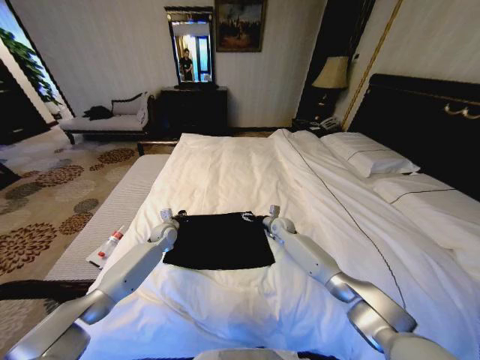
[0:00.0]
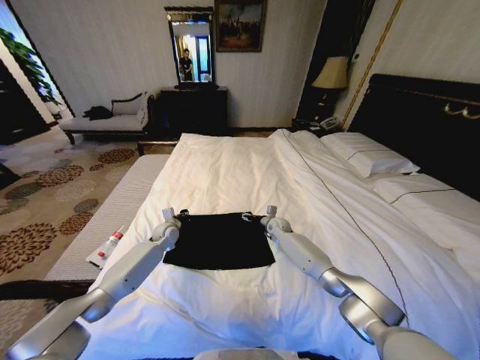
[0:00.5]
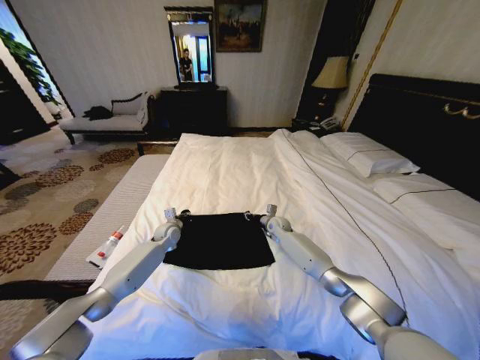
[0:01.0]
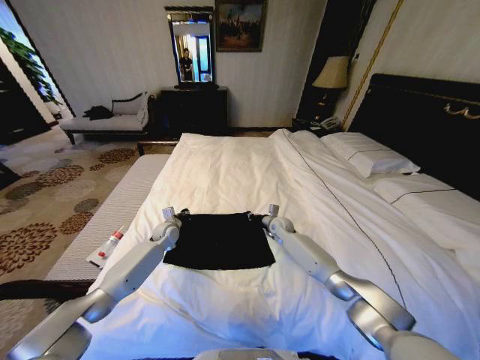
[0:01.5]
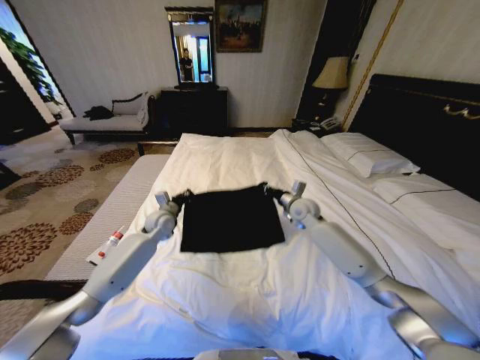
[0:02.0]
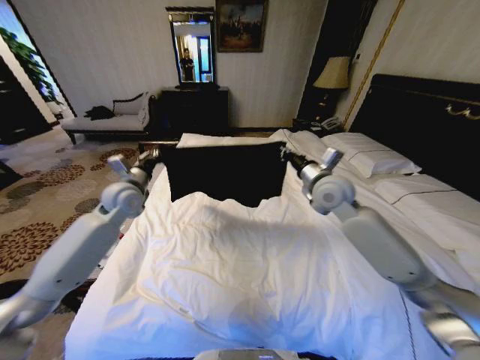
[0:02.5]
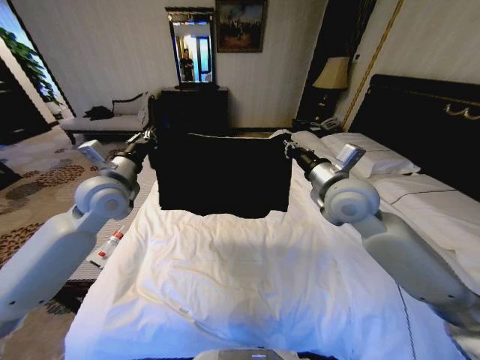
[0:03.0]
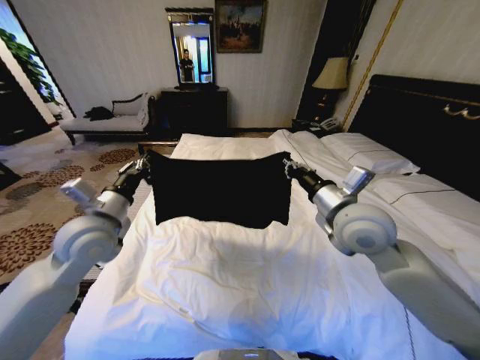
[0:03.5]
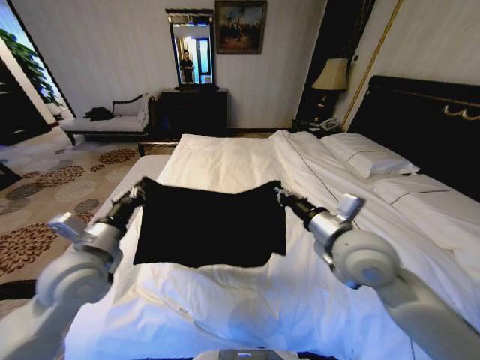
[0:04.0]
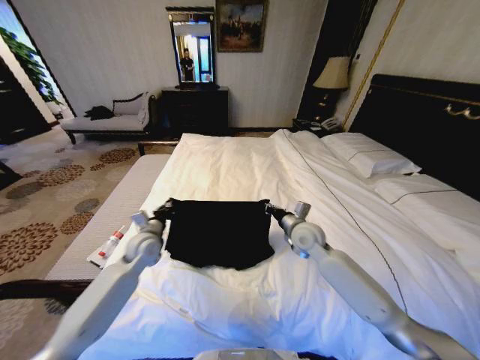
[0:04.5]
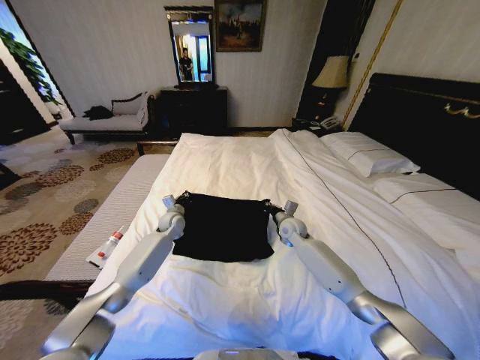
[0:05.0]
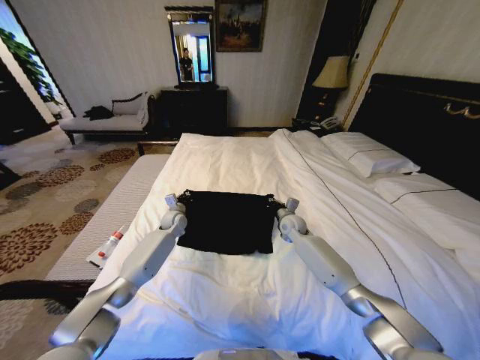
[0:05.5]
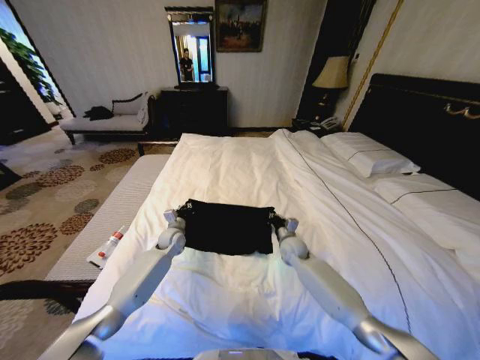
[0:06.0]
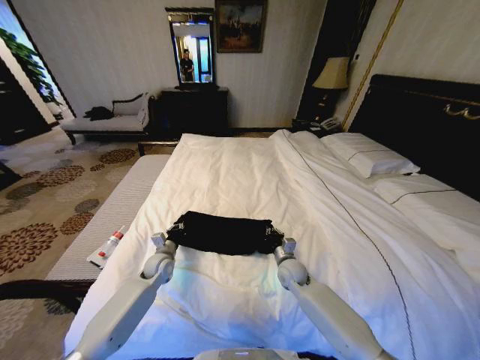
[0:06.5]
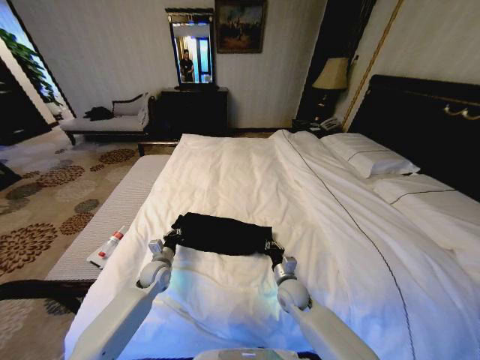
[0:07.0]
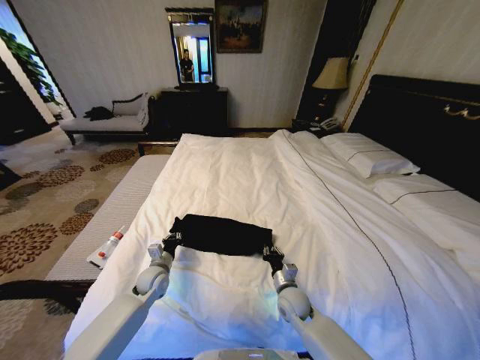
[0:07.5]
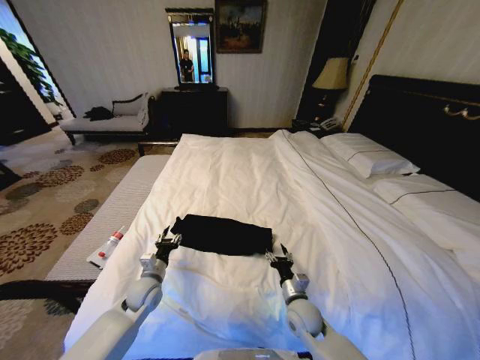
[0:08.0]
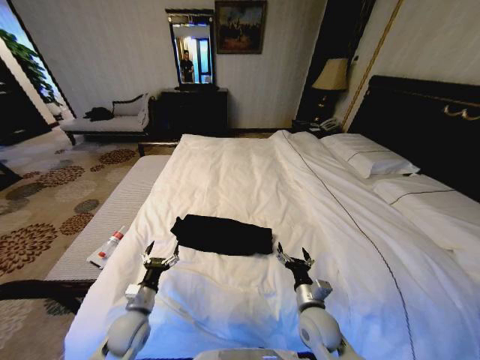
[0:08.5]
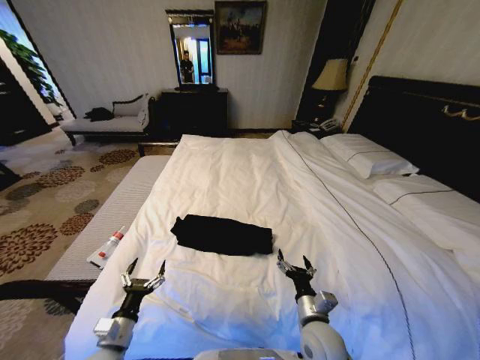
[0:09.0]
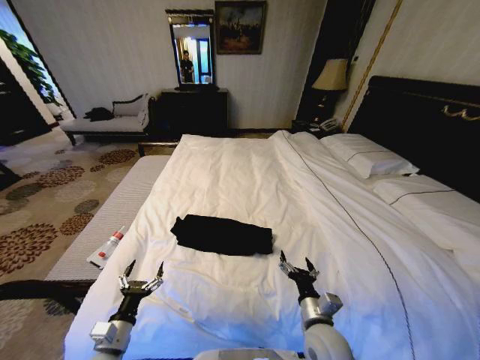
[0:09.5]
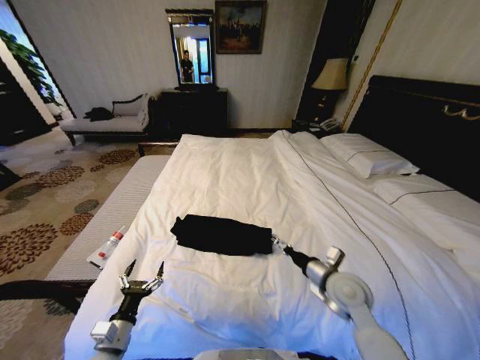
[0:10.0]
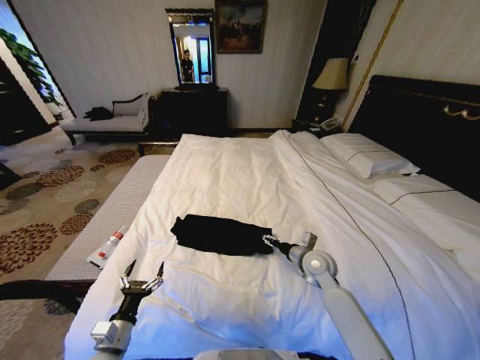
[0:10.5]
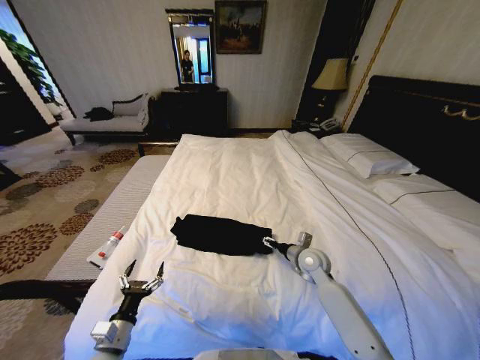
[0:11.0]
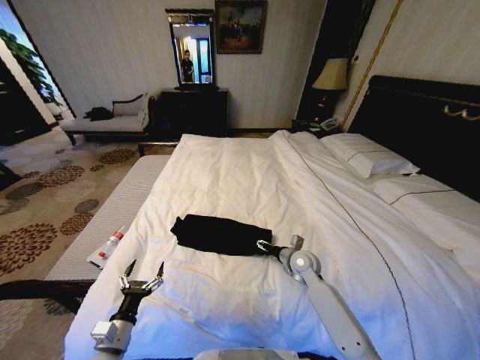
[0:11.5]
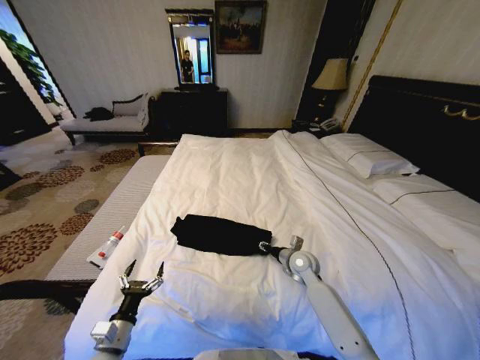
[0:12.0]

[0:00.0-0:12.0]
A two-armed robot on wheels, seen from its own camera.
Task of the whole recording: Fold the clothes on the bed.
0:00.0 to 0:02.0: The right gripper travels upward by about 15 cm, and closes its fingers, while the left gripper moves upward, roughly 10 cm.
0:02.0 to 0:04.0: The two grippers go roughly 25 cm backward and upward.
0:04.0 to 0:06.0: The left gripper shifts roughly 30 cm forward and downward. Meanwhile the right gripper travels downward and forward by approximately 30 cm.
0:06.0 to 0:08.0: The grippers both shift backward by some 20 cm. The right gripper opens its fingers. The left gripper opens.
0:08.0 to 0:10.0: The left gripper is displaced backward by approximately 20 cm, and opens up. Meanwhile the right gripper is displaced upward and to the right by some 15 cm, and opens its fingers.
0:10.0 to 0:12.0: The right gripper shifts roughly 15 cm forward and downward, and closes up.

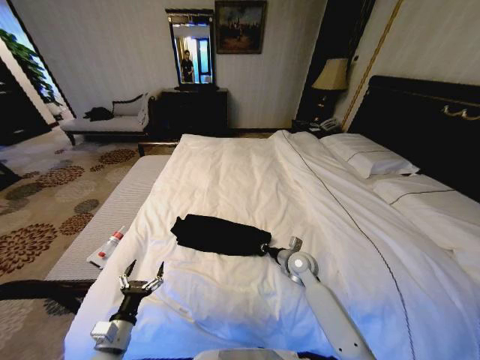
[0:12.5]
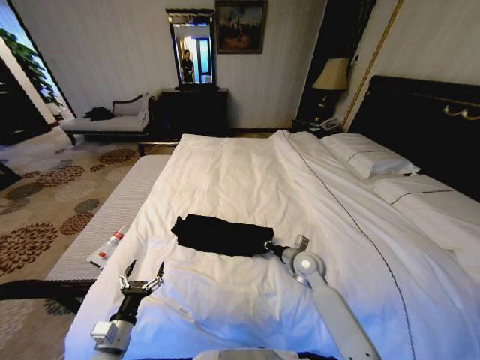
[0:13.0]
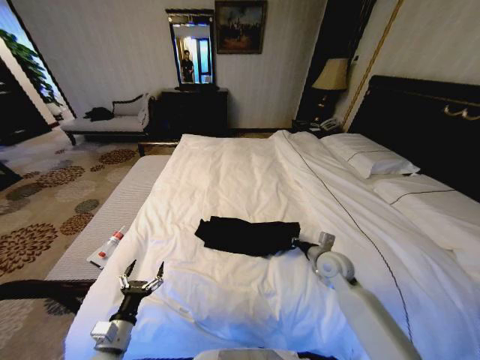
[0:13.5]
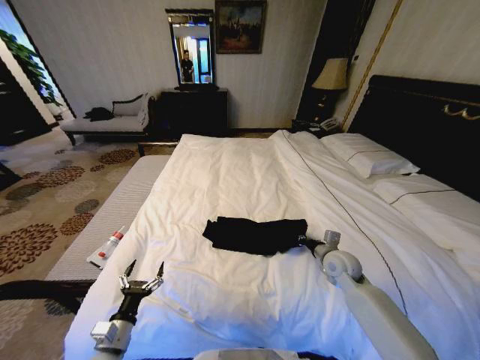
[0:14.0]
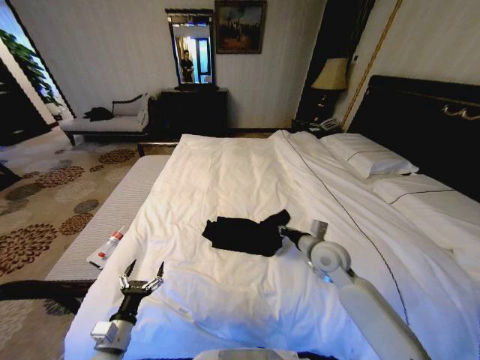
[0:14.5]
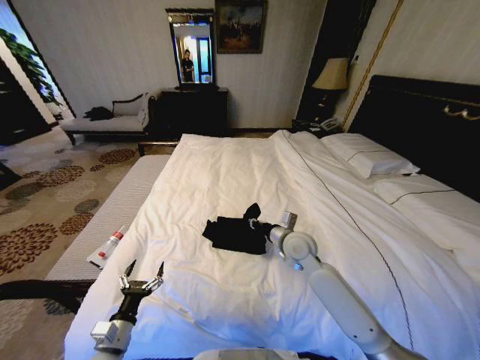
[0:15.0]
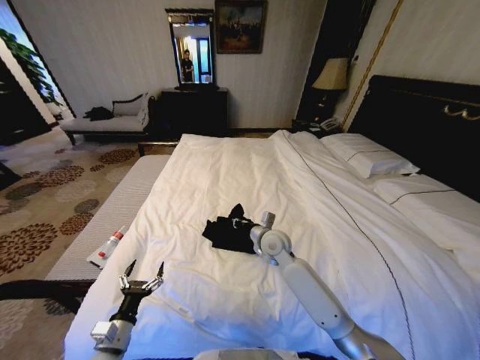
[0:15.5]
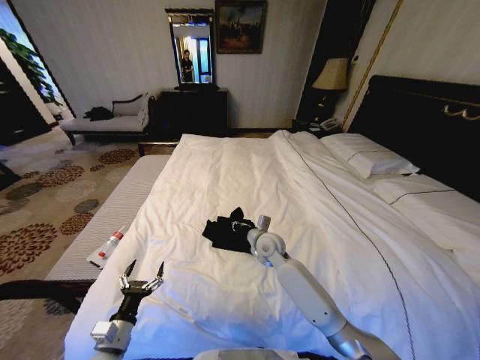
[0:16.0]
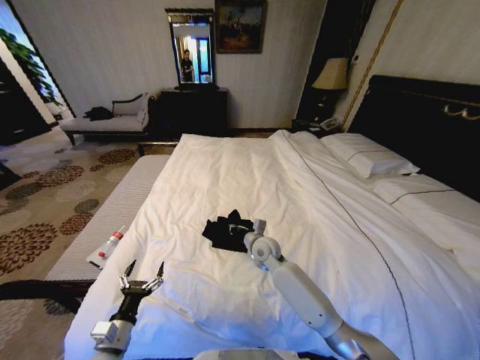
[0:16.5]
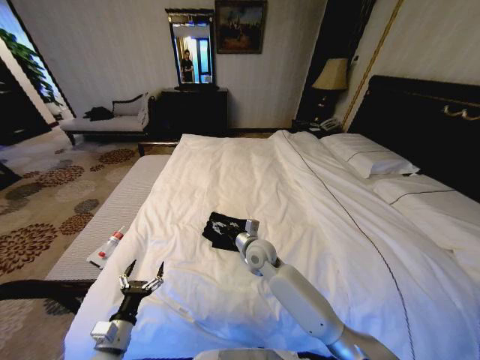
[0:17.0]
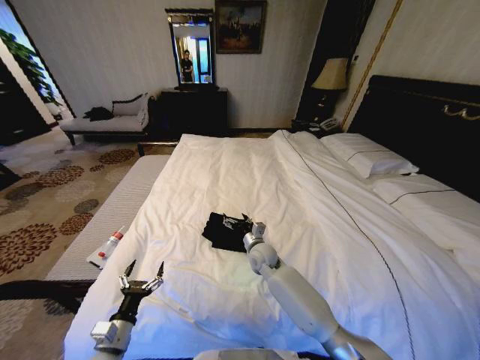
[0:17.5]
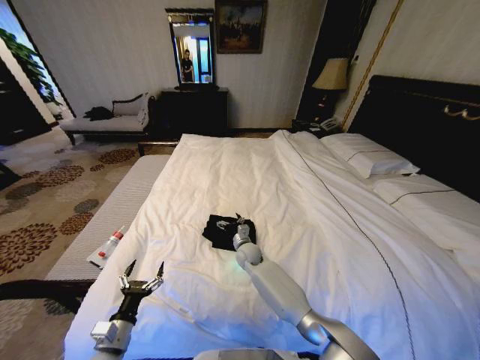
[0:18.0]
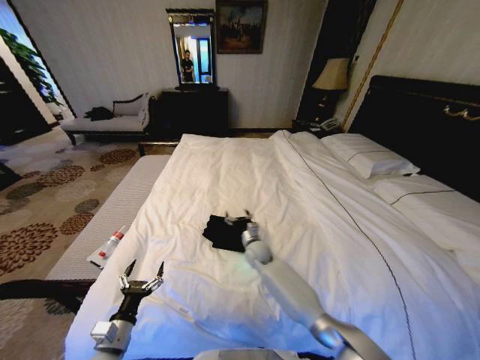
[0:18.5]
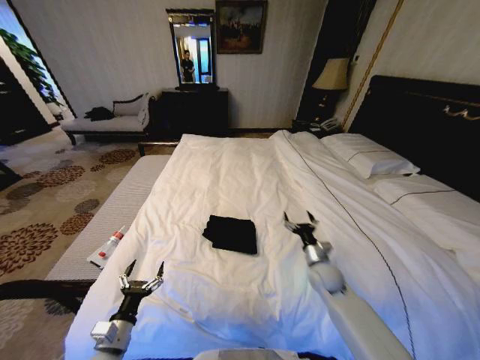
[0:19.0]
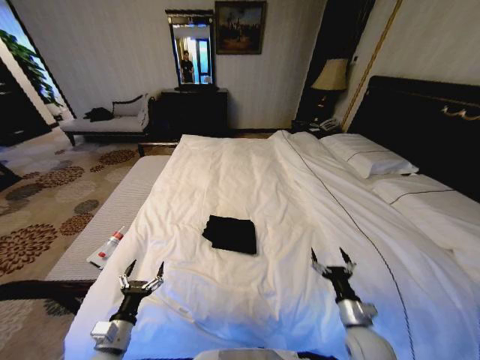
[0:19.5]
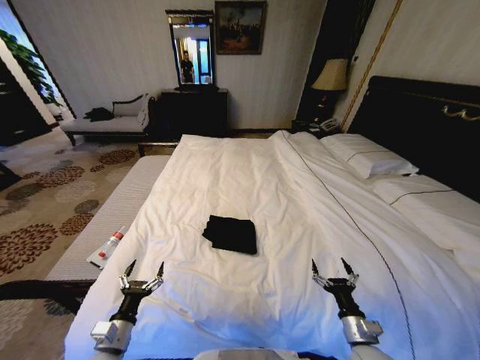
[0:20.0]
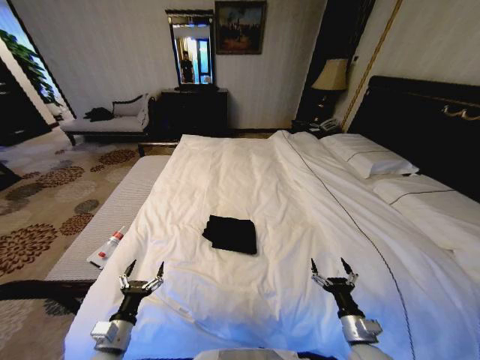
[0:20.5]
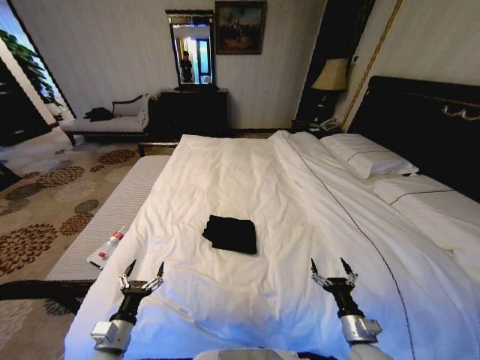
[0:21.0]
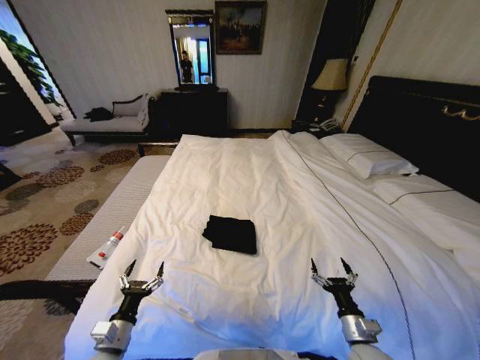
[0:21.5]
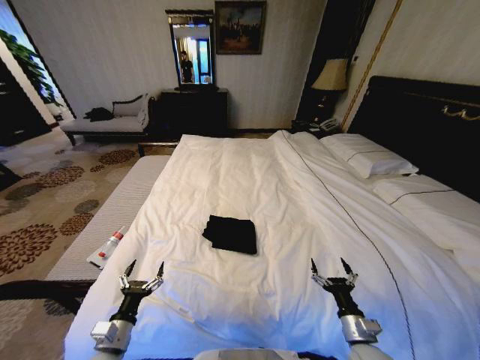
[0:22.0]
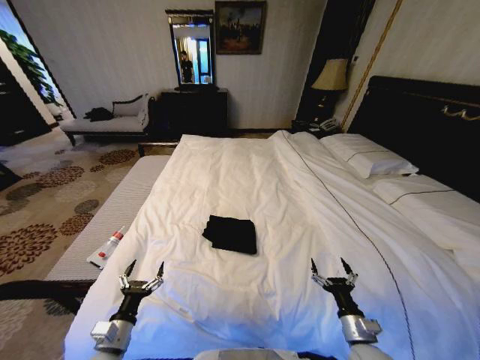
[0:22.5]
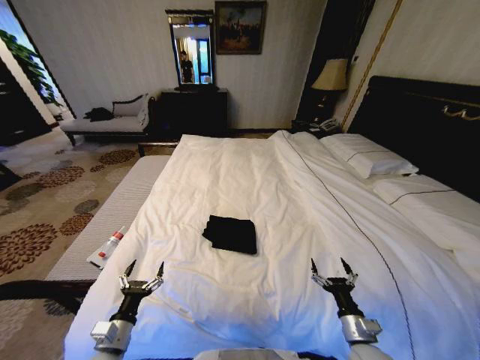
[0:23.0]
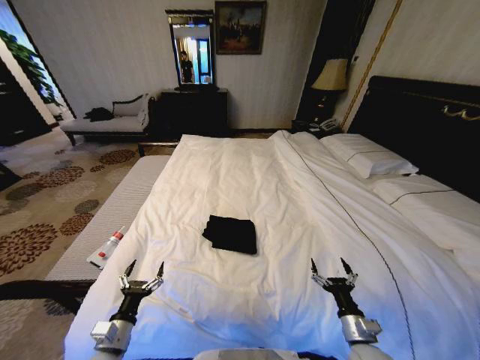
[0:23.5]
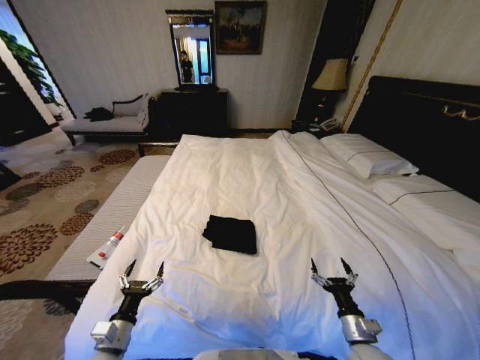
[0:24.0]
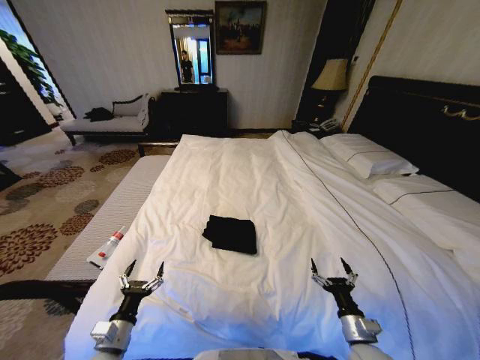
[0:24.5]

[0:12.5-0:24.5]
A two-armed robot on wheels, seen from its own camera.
Task of the whole recording: Fold the clothes on the bed.
0:12.5 to 0:14.5: The right gripper goes approximately 10 cm upward.
0:14.5 to 0:16.5: The right gripper shifts approximately 20 cm to the left, downward and forward.
0:16.5 to 0:18.5: The right gripper shifts some 5 cm downward, and opens.
0:18.5 to 0:20.5: The right gripper goes some 40 cm backward and to the right.
0:20.5 to 0:24.5: Neither gripper changes place.

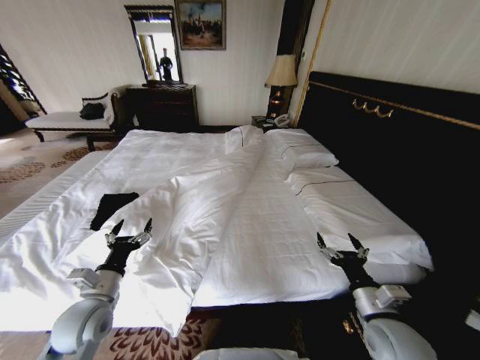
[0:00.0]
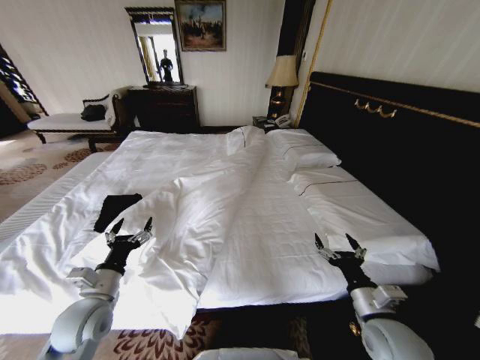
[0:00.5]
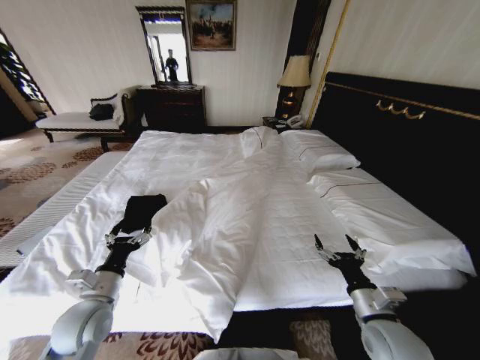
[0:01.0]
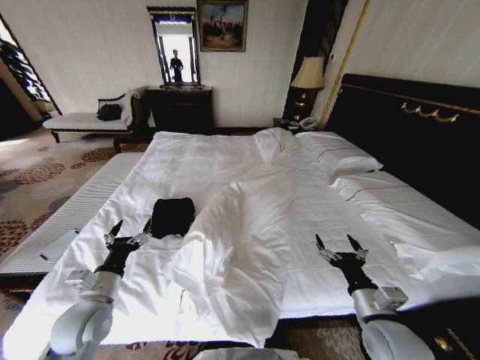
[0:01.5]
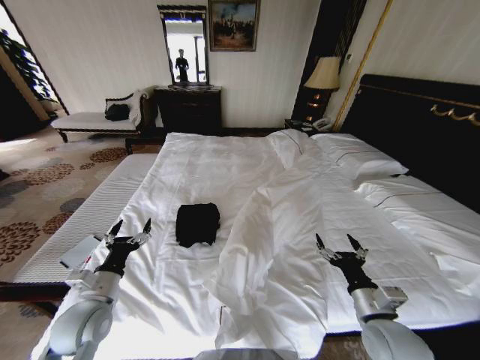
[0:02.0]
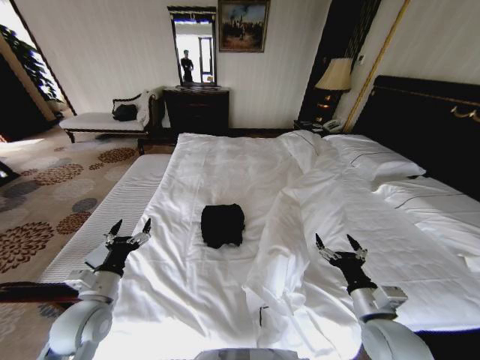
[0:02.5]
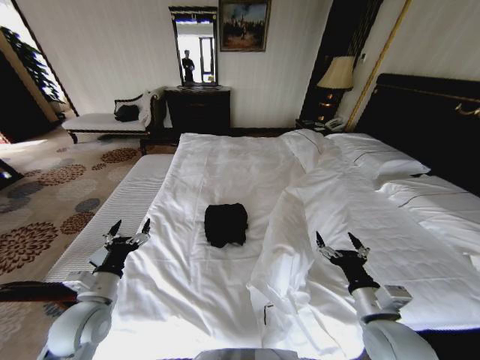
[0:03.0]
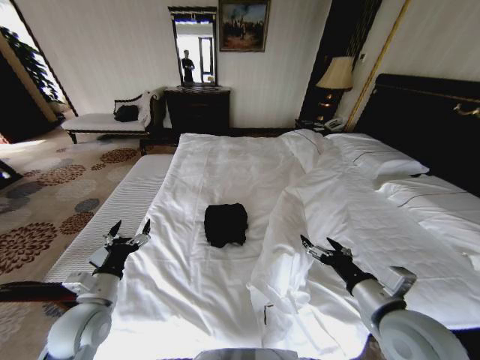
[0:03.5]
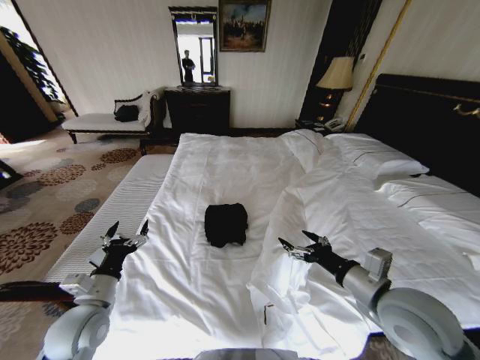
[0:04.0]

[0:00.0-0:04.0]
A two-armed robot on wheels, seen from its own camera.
Task of the whole recording: Fold the clothes on the bed.
0:02.0 to 0:04.0: The right gripper travels upward by approximately 10 cm.
